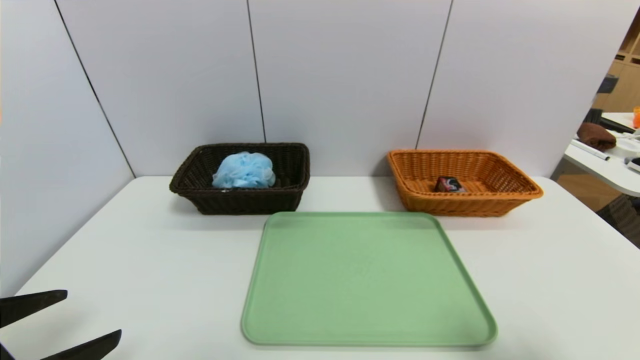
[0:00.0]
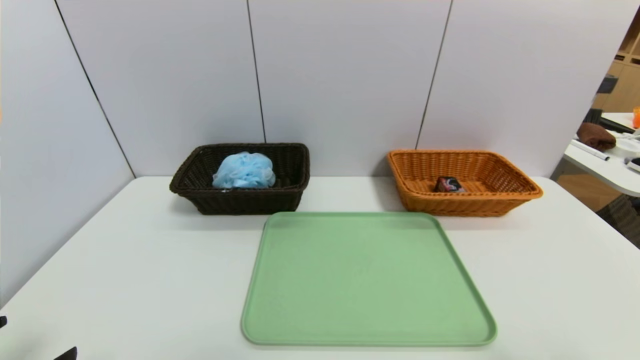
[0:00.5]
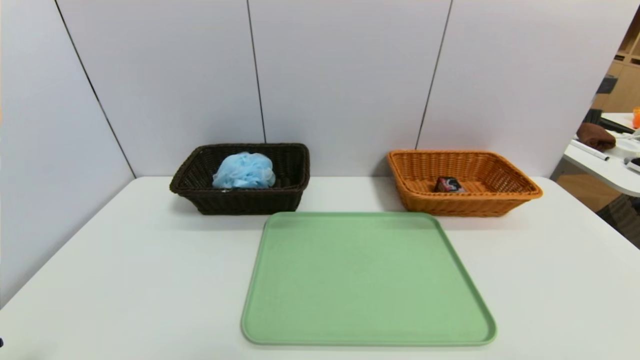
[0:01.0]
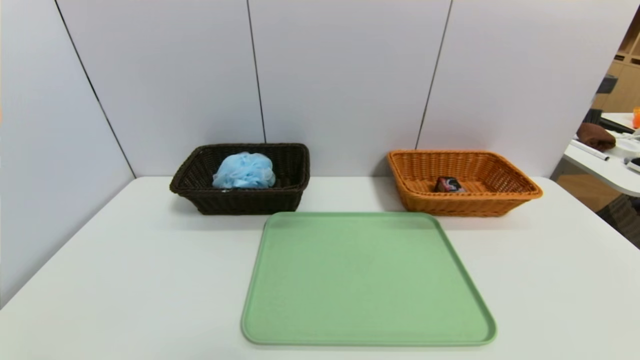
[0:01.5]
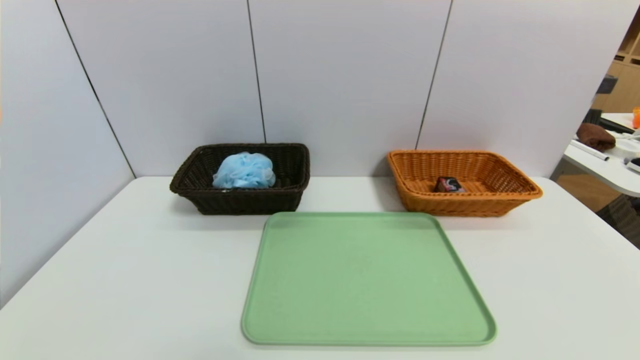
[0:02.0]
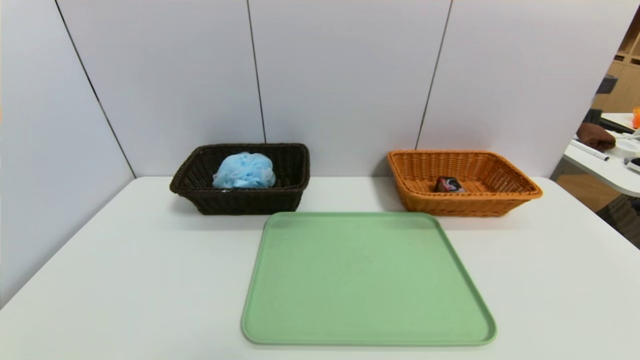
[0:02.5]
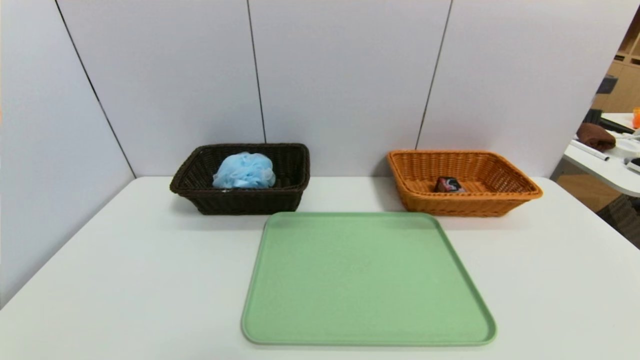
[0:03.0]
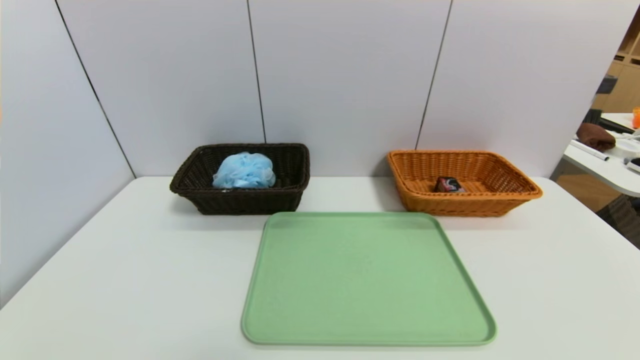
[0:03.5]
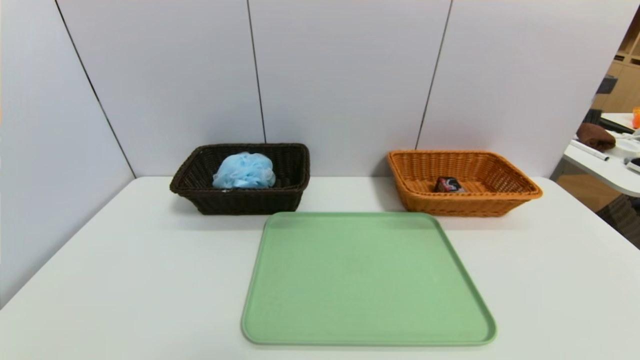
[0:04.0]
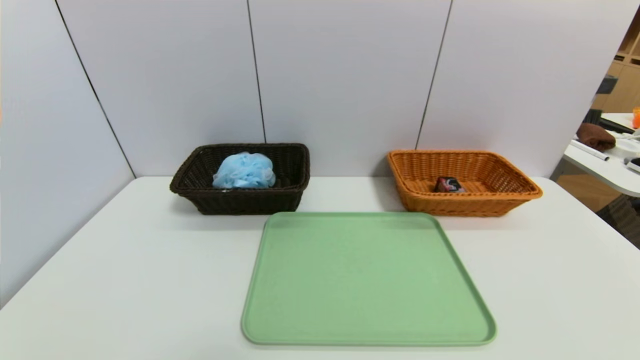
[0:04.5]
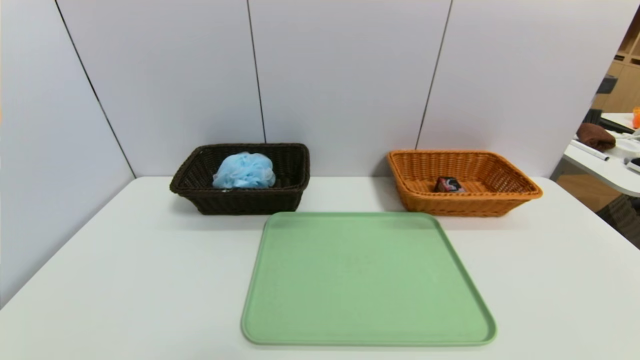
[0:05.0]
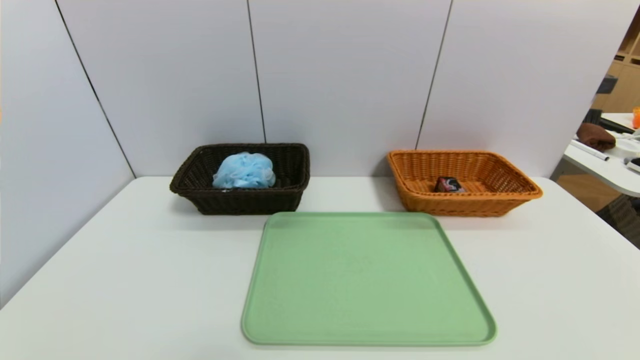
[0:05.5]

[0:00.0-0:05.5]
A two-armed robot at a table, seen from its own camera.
Task of the whole recording: place the food in the right basket with the right gripper, and place the non food items in the left basket with the left gripper.
0:00.0 to 0:02.0: The grippers both shift backward and downward by roughly 10 cm.
